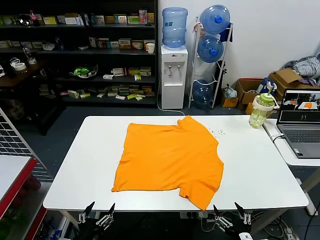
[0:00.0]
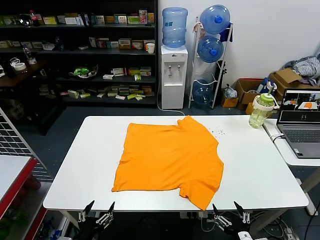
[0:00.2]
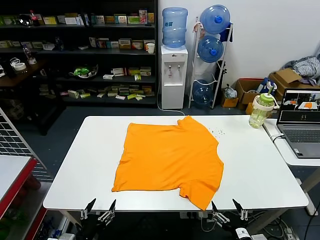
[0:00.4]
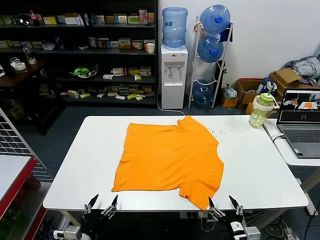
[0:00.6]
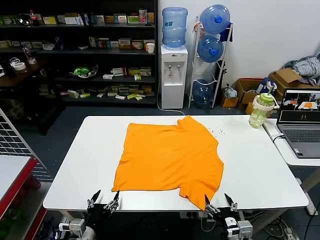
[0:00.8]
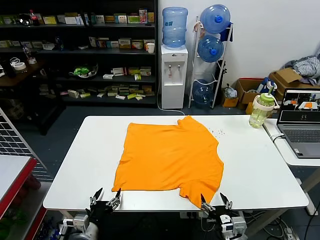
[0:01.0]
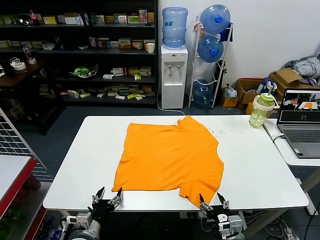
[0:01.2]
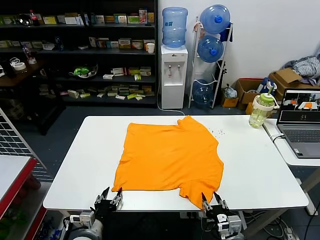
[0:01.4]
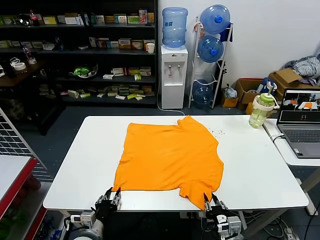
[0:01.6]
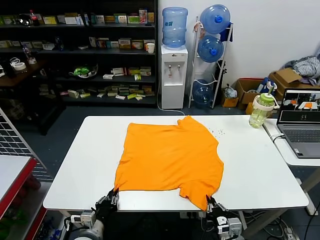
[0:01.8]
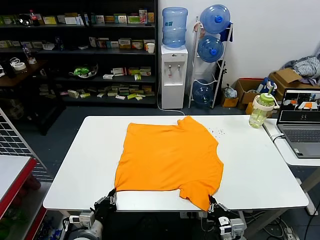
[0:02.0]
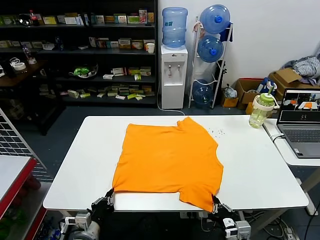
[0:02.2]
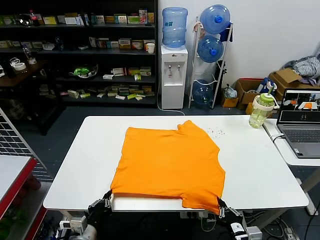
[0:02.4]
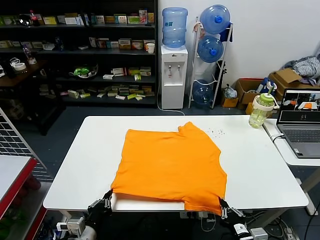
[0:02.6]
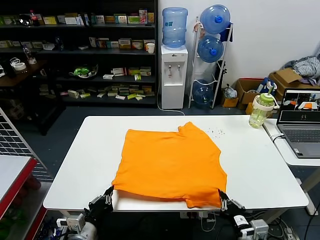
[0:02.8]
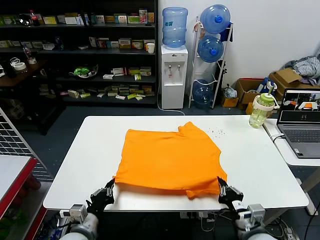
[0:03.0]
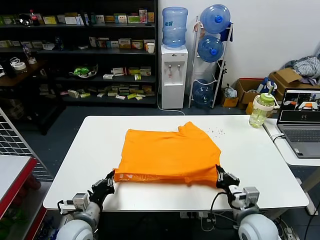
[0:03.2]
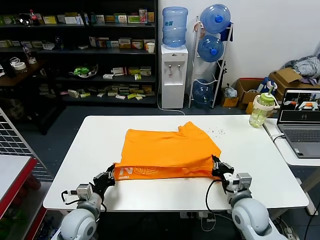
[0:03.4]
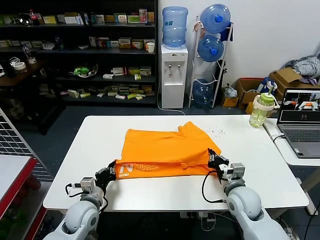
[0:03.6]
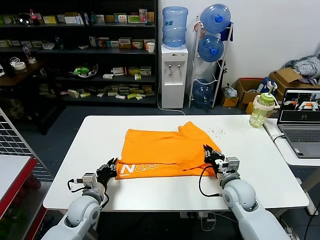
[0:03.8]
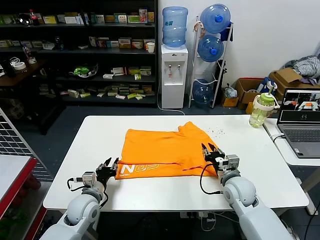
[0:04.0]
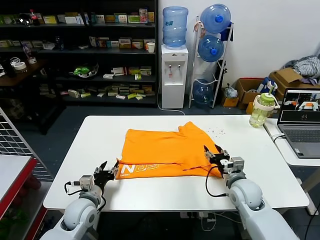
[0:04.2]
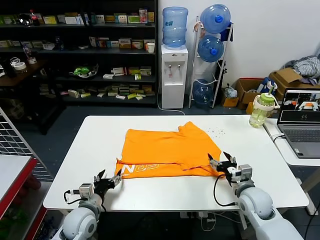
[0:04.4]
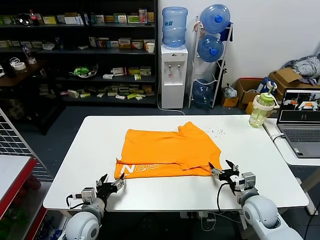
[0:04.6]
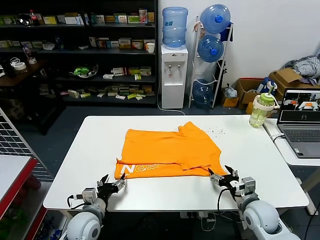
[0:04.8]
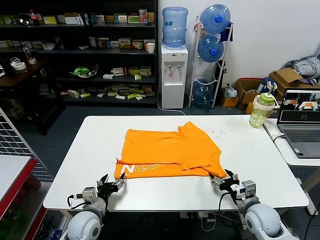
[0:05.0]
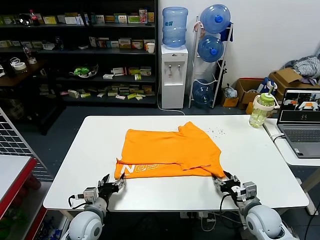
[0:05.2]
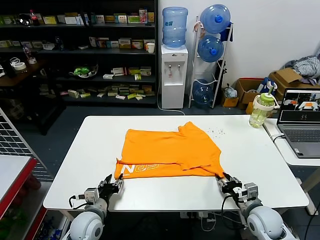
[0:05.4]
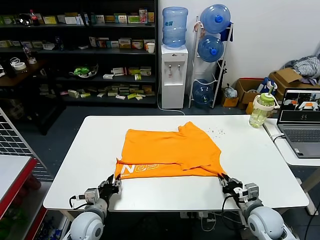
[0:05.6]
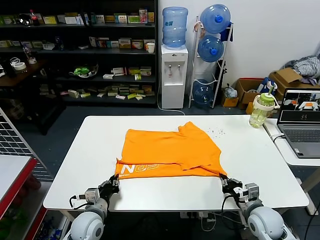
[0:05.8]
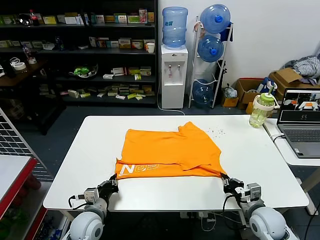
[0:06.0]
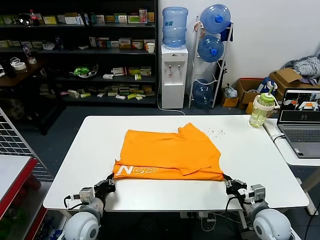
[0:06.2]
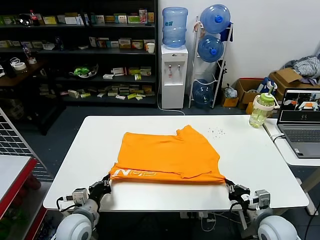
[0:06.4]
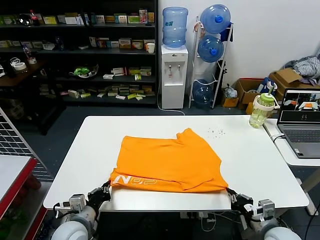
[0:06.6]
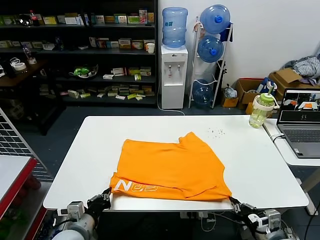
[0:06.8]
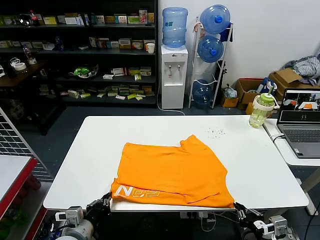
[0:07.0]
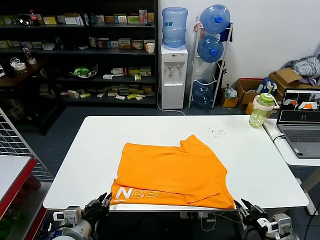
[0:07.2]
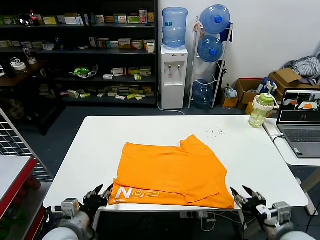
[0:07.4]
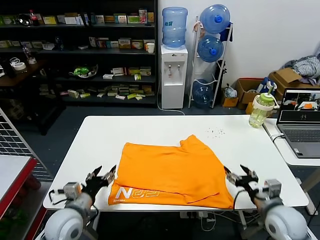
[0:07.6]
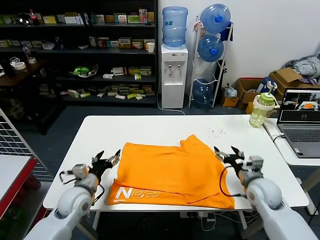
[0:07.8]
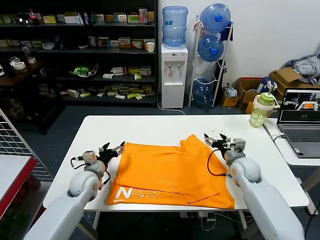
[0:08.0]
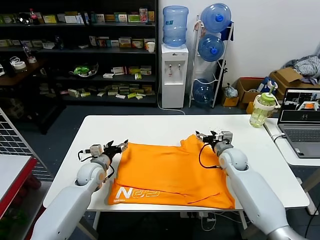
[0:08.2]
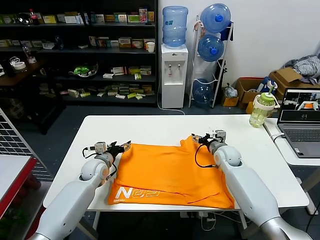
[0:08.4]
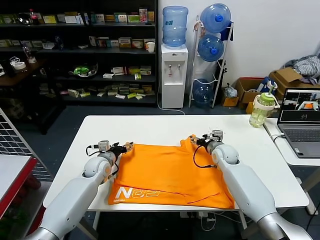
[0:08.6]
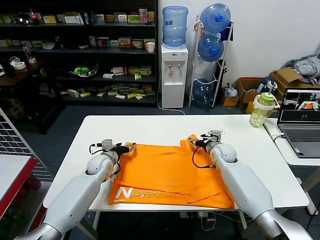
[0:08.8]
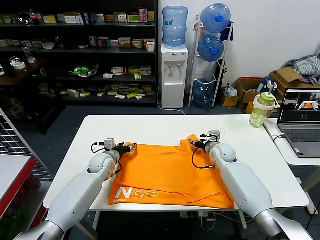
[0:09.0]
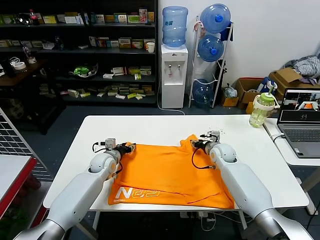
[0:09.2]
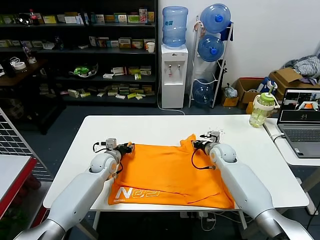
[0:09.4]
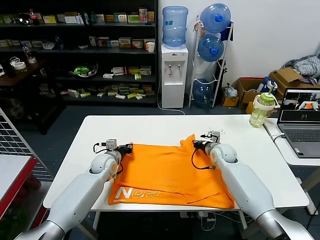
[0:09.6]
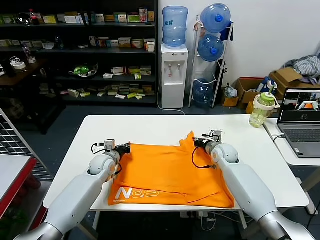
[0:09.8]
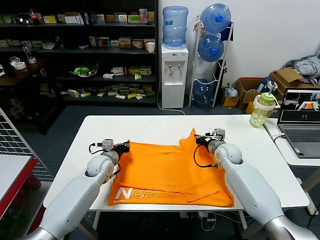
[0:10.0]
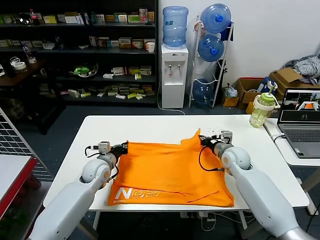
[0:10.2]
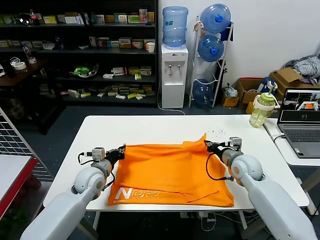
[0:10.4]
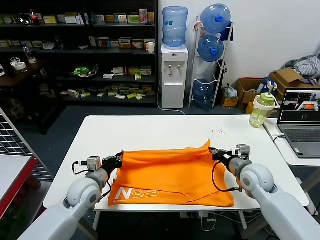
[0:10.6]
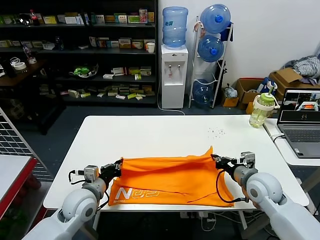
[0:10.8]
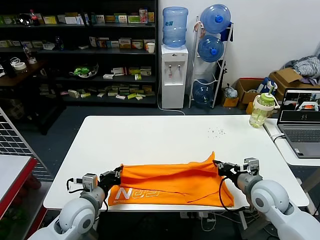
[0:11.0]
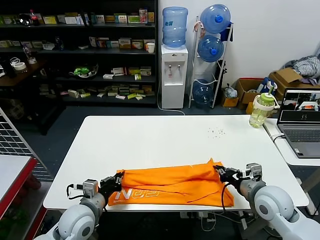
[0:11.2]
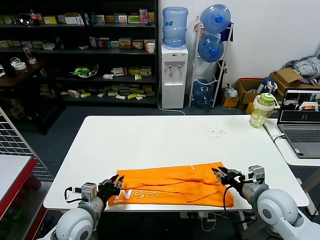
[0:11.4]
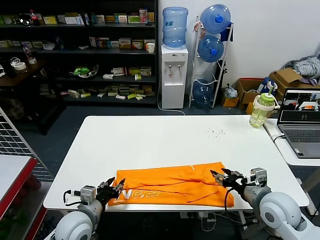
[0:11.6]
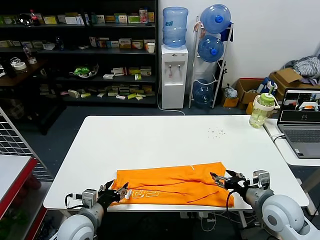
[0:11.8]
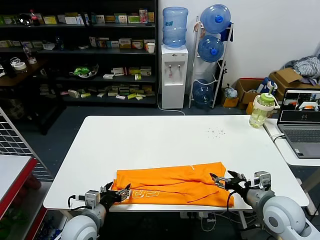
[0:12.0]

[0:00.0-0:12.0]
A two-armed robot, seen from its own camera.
Task of the whole recording: fold and organize the clothes.
Step, 0:00.0 to 0:01.8: use both grippers simultaneously to clamp the lower edge of the clothing fabric.
Step, 0:02.0 to 0:03.8: use both grippers to drag the lower edge of the fabric forward and fold it over the upper edge.
Step, 0:04.0 to 0:07.0: Drag the clothes downward with both gripper.
Step, 0:07.2 to 0:09.4: use both grippers simultaneously to clamp the upper edge of the clothing fabric.
Step, 0:09.8 to 0:11.2: use both grippers to drag the upper edge of the fabric backward and fold it over the lower edge.
0:01.6 to 0:03.0: Both grippers move upward, roughly 10 cm. The left gripper closes up.
0:03.0 to 0:04.4: Both grippers travel together forward, about 10 cm. The right gripper opens, while the left gripper opens.
0:04.4 to 0:06.0: The right gripper heads backward, covering approximately 5 cm, and closes, while the left gripper closes up.
0:06.0 to 0:07.6: The grippers both shift upward by approximately 10 cm. The left gripper opens its fingers, while the right gripper travels backward and back again, about 10 cm each way, and opens up.
0:07.6 to 0:09.0: Both grippers move forward, about 25 cm.
0:09.0 to 0:10.4: The right gripper moves backward and upward, about 10 cm, and closes. Meanwhile the left gripper goes approximately 10 cm backward, and closes.
0:10.4 to 0:12.0: Both grippers travel together backward, about 15 cm. The right gripper opens up. Meanwhile the left gripper opens up.

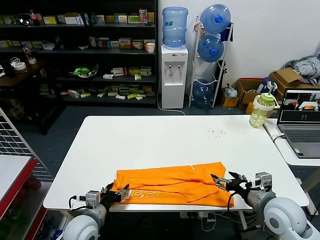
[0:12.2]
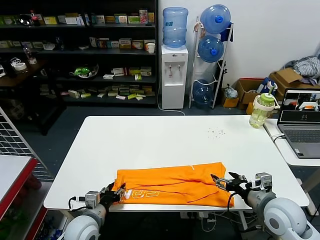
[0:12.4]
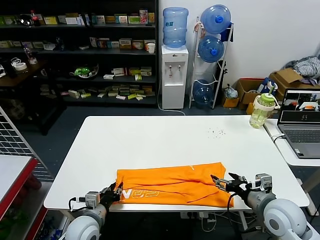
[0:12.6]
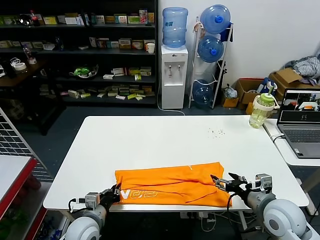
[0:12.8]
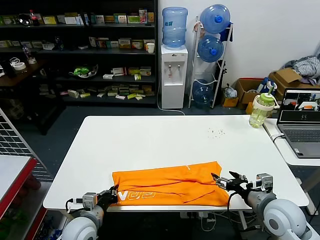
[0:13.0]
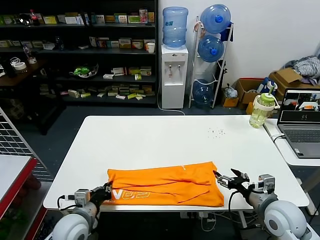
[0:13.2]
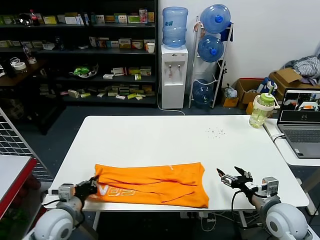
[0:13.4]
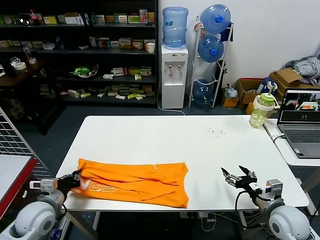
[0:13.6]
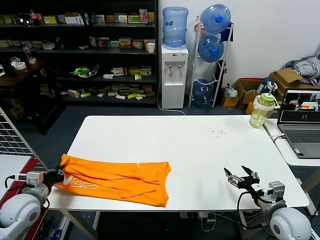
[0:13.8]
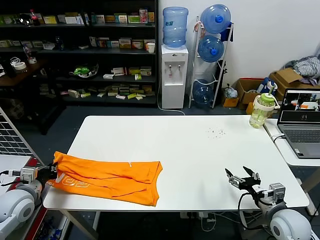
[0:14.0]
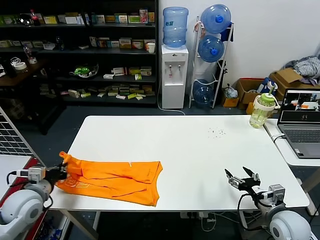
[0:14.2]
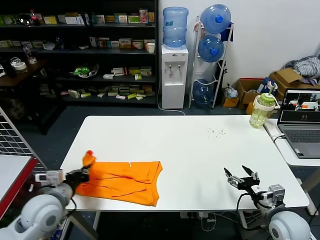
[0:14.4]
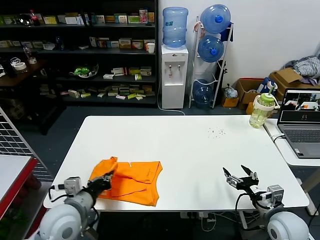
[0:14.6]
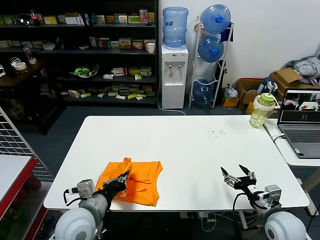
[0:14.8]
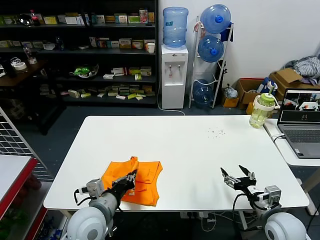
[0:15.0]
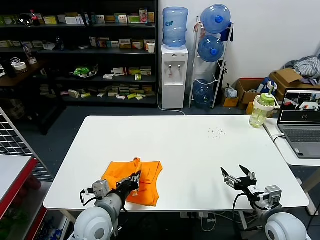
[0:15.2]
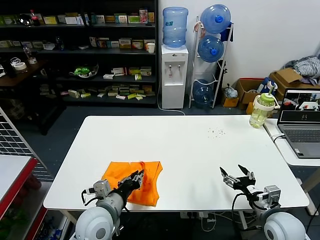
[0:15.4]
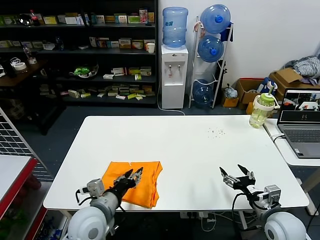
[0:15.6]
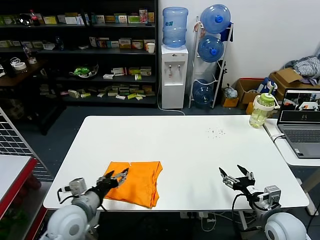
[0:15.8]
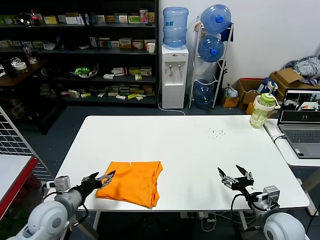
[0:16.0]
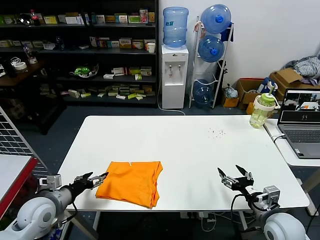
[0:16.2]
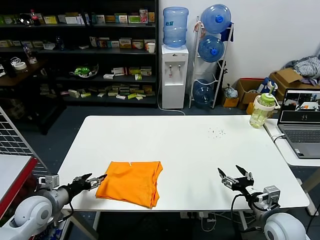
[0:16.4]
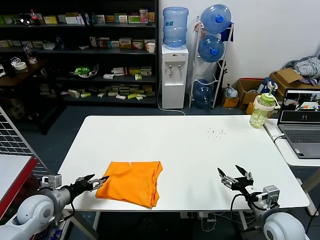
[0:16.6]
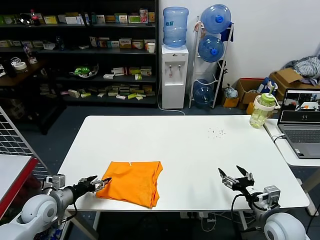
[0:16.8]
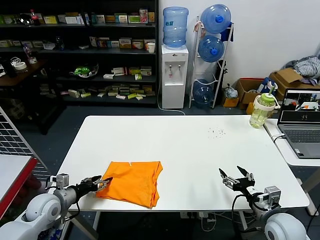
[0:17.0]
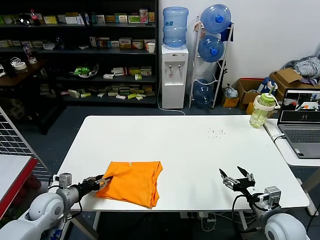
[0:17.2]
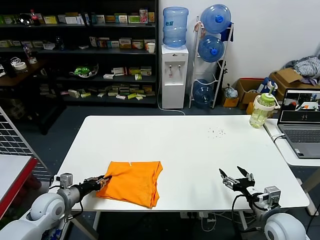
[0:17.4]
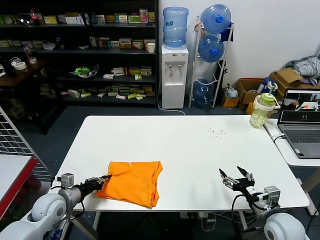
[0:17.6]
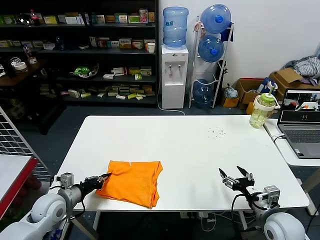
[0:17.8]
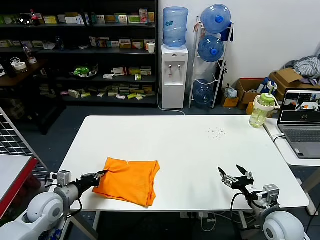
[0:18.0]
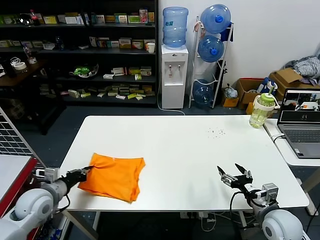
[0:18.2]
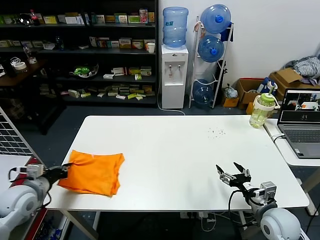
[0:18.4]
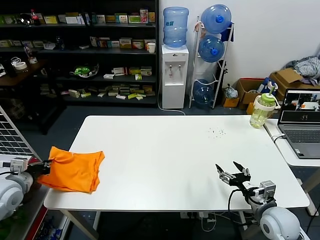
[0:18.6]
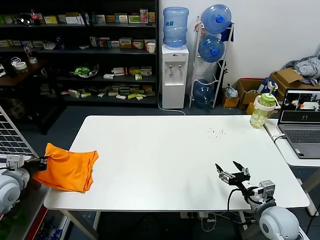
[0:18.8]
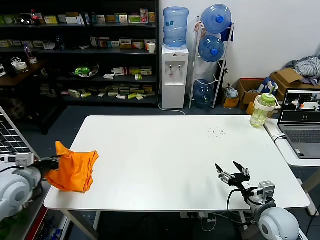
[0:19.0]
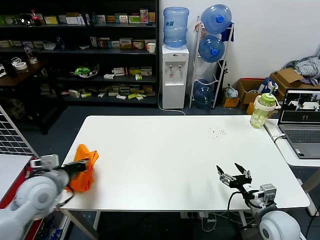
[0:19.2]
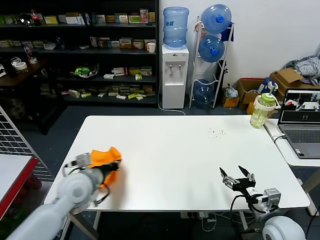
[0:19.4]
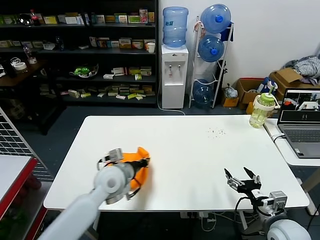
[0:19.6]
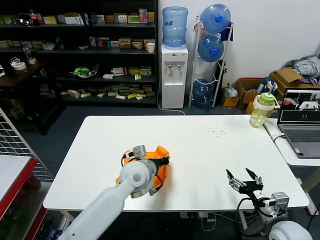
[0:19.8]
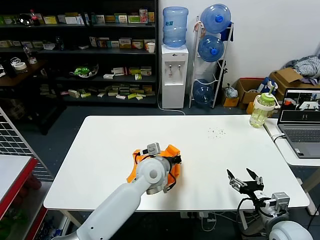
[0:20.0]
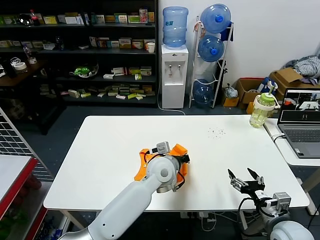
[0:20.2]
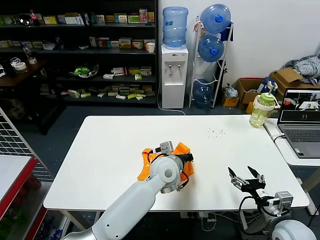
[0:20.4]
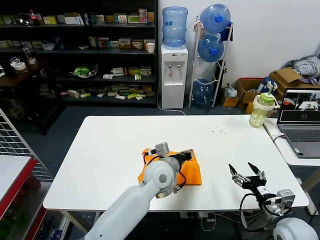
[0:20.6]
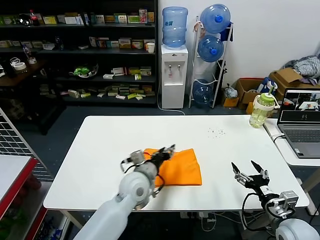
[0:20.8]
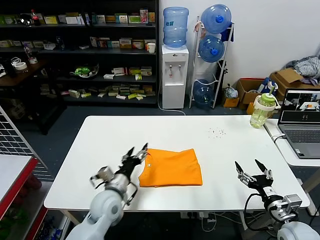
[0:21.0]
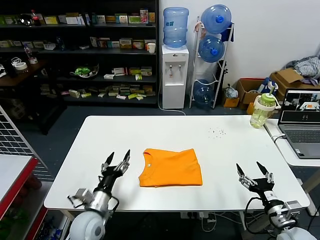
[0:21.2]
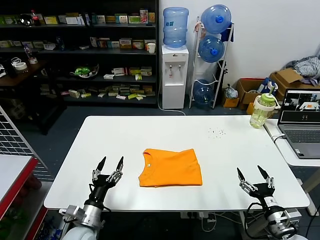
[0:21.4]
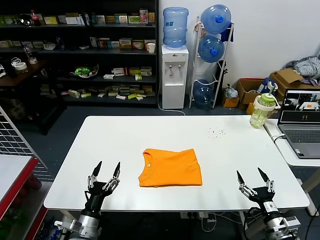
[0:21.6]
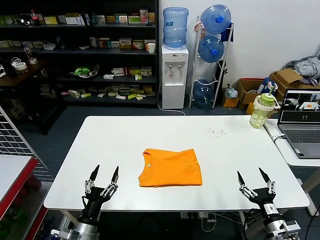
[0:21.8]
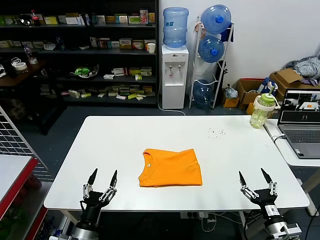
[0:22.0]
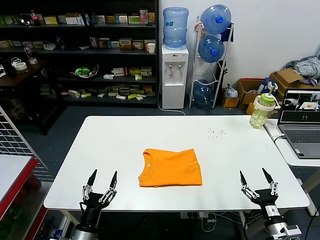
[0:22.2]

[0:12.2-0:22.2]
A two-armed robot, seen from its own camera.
Task of the whole recording: fold and organize the clothes.
Step, 0:13.0 to 0:15.4: use the left gripper to drag the left edge of the fabric to the left and folds it over the right edge.
Step, 0:15.6 to 0:20.6: Flip the folded clothes over with left gripper.
0:12.2 to 0:13.6: The right gripper moves downward, roughly 5 cm. Meanwhile the left gripper shifts approximately 10 cm to the left and upward, and closes.
0:13.6 to 0:15.0: The left gripper moves to the right, about 15 cm.
0:15.0 to 0:16.4: The left gripper goes about 20 cm to the left, and opens up.
0:16.4 to 0:18.0: The left gripper closes its fingers.
0:18.0 to 0:19.4: The left gripper moves upward and to the right, approximately 10 cm.
0:19.4 to 0:20.8: The left gripper moves to the right, some 25 cm, and opens.
0:20.8 to 0:22.2: The left gripper shifts approximately 30 cm to the left, backward and downward, and opens; the right gripper travels downward and backward by approximately 10 cm.
